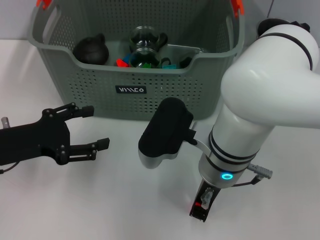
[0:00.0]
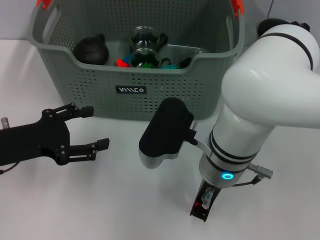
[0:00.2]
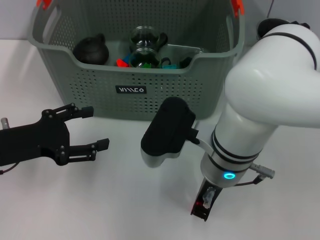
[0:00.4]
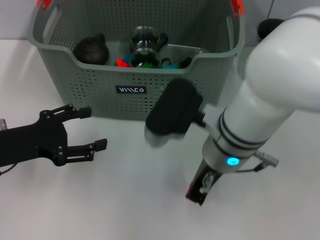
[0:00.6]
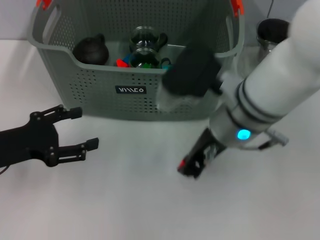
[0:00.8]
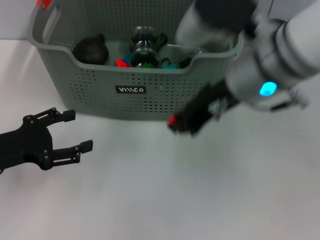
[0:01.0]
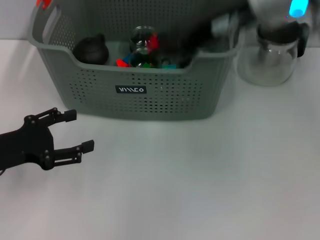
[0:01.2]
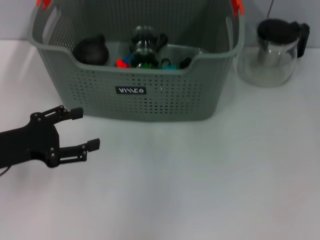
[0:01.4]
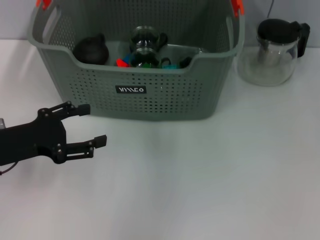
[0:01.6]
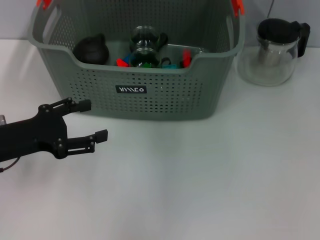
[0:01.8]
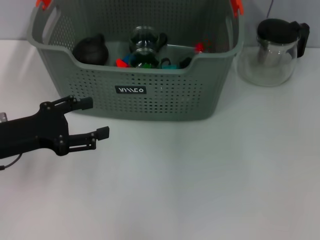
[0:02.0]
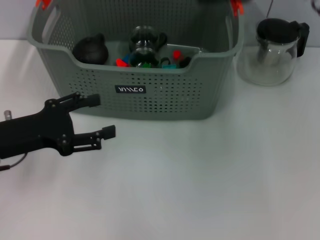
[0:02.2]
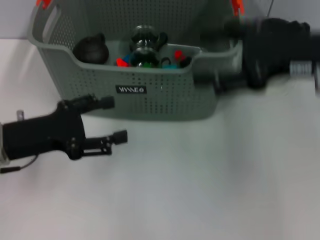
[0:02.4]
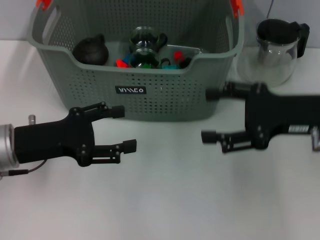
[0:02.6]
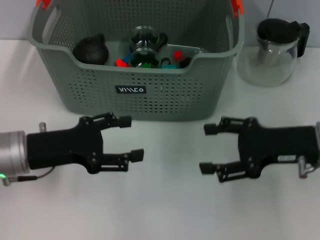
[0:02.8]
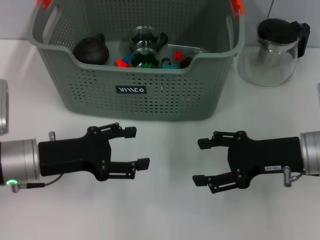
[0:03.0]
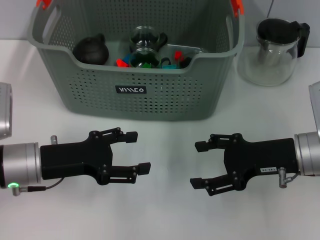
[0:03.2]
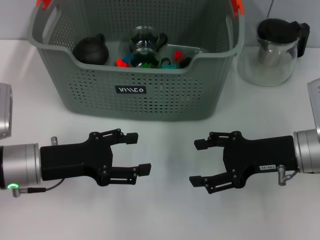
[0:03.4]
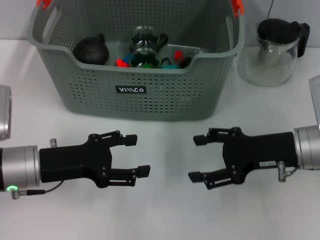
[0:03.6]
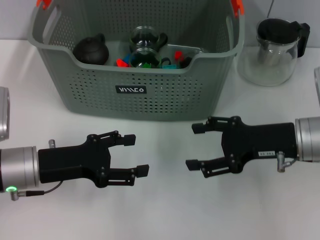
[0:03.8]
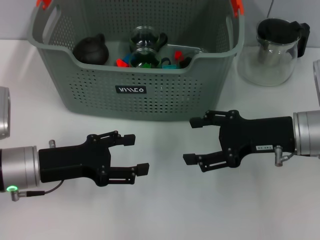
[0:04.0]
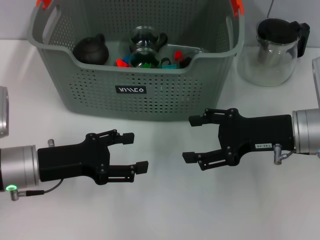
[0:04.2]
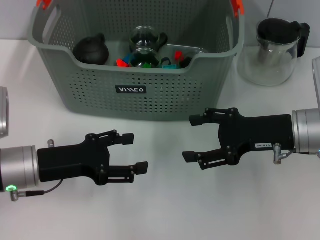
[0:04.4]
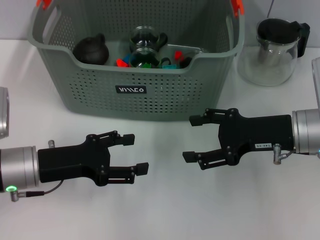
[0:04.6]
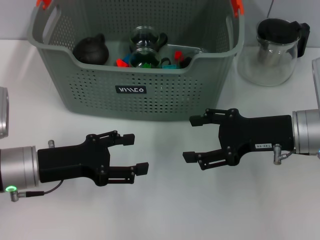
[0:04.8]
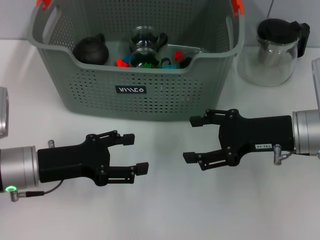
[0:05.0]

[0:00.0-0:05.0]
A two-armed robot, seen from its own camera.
Task of the whole recording: pick up the teacup on the table and place it into the storage bin, pick up the block on the table and place it into the storage bin.
Step, 0:00.4 to 0:01.8: Place the orange block in the storage box with right gripper.
0:00.0 to 0:01.6: The right gripper moves upward, forward and to the right, some 25 cm.
0:01.6 to 0:03.4: The right gripper travels downward and backward by roughly 25 cm, and opens up, while the left gripper heads to the right, covering some 5 cm.
0:03.4 to 0:05.0: There are only small adjustments of the grippers.
